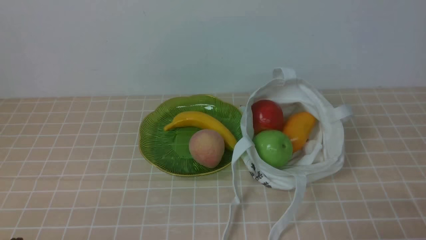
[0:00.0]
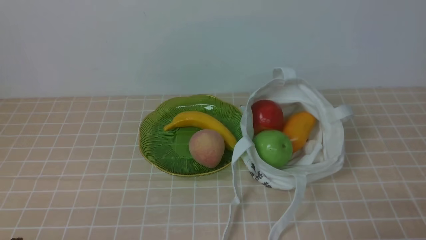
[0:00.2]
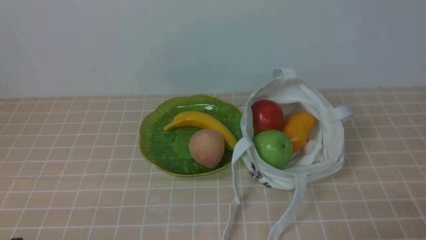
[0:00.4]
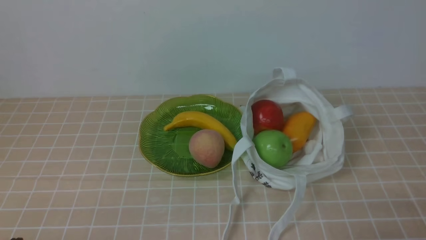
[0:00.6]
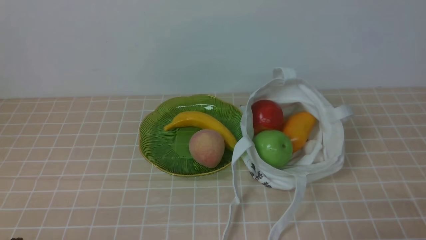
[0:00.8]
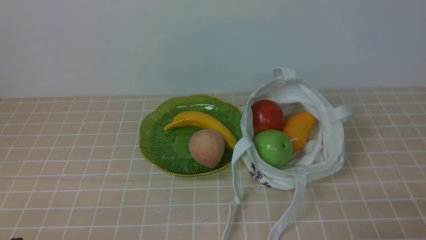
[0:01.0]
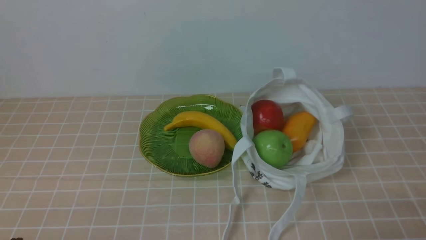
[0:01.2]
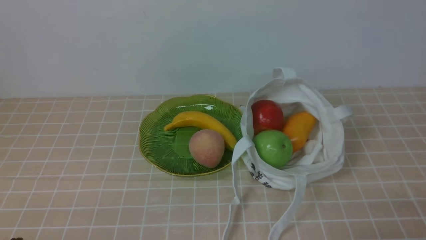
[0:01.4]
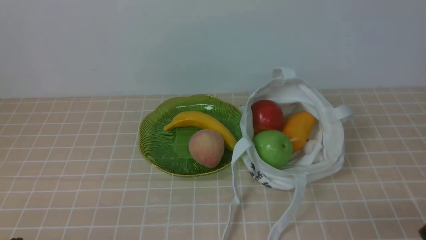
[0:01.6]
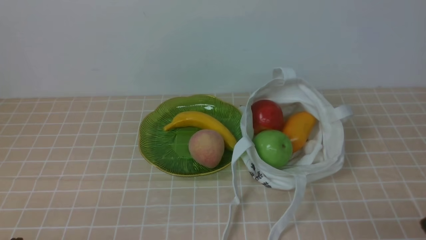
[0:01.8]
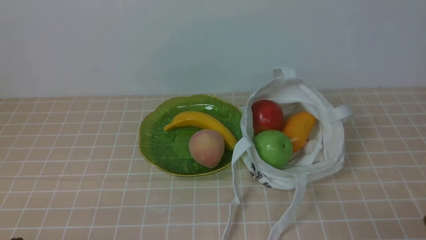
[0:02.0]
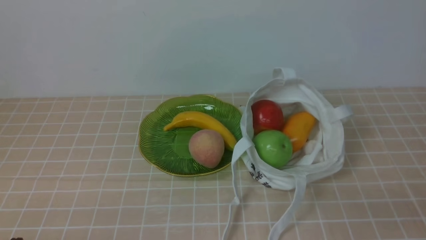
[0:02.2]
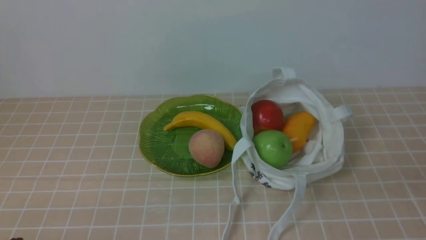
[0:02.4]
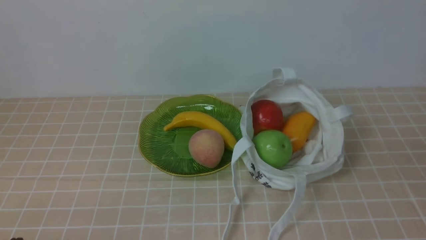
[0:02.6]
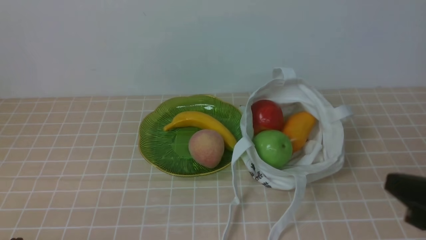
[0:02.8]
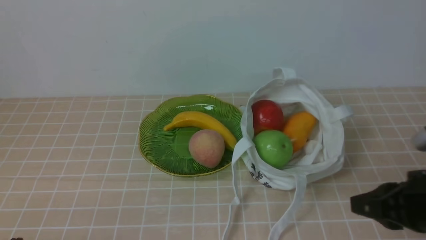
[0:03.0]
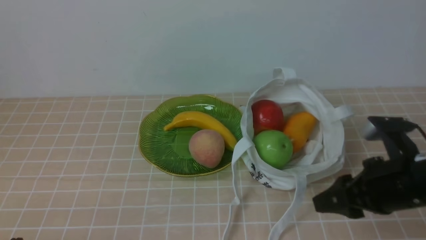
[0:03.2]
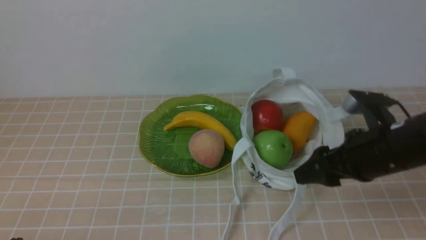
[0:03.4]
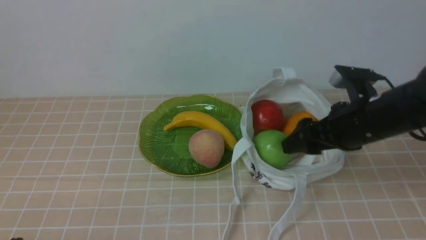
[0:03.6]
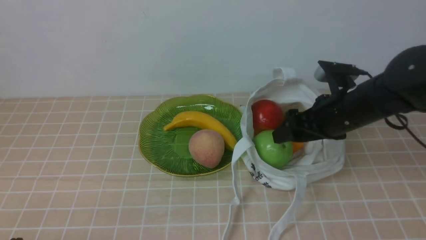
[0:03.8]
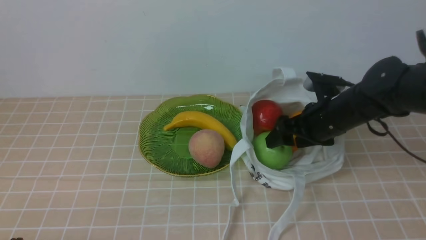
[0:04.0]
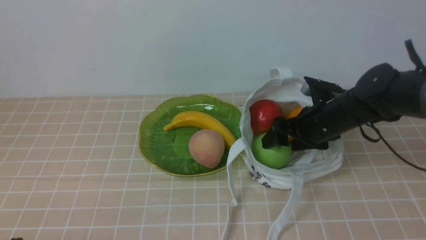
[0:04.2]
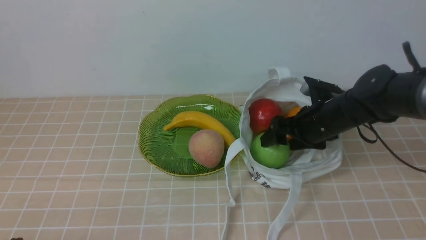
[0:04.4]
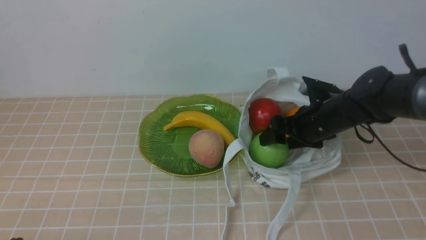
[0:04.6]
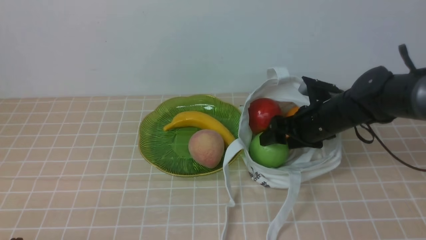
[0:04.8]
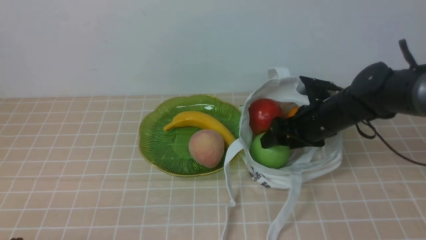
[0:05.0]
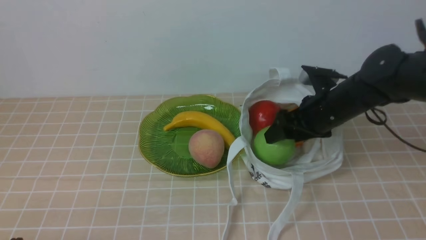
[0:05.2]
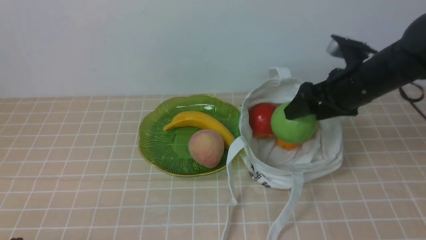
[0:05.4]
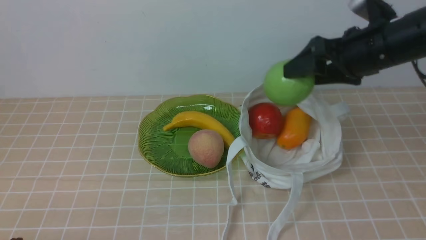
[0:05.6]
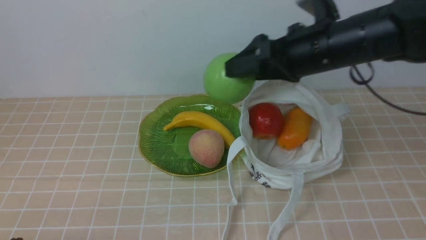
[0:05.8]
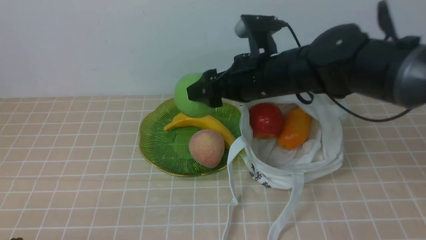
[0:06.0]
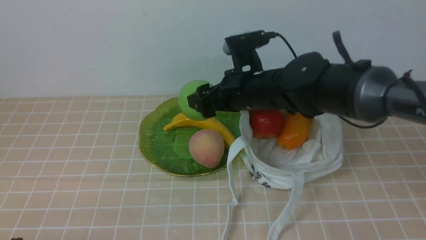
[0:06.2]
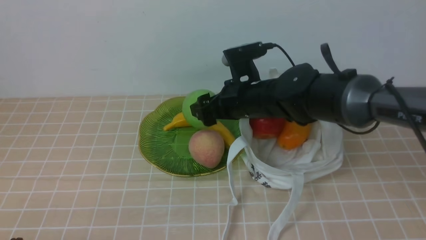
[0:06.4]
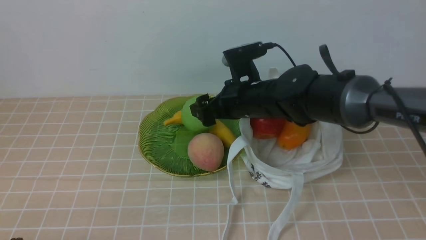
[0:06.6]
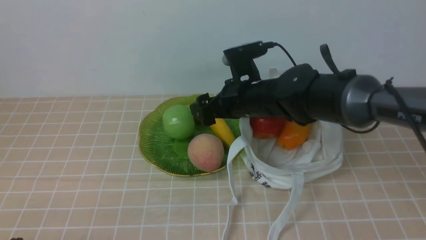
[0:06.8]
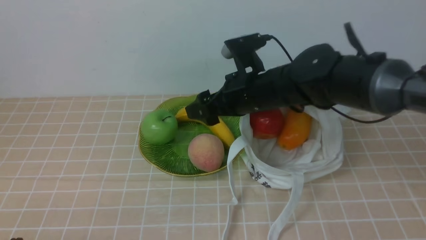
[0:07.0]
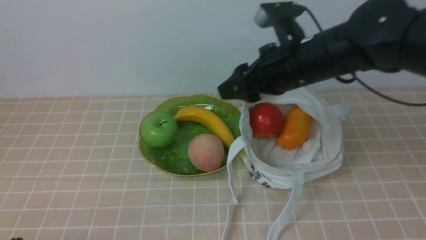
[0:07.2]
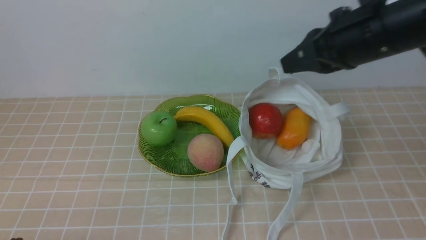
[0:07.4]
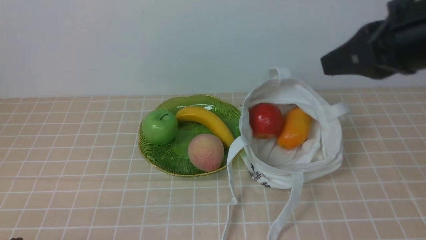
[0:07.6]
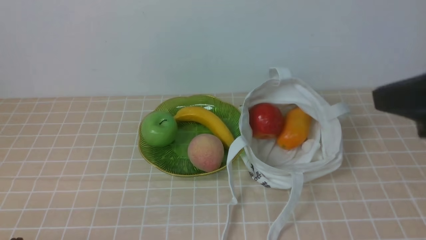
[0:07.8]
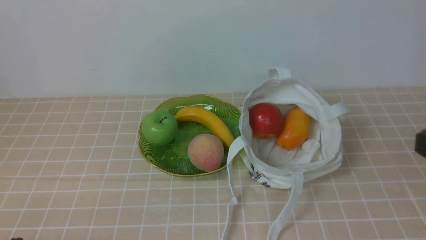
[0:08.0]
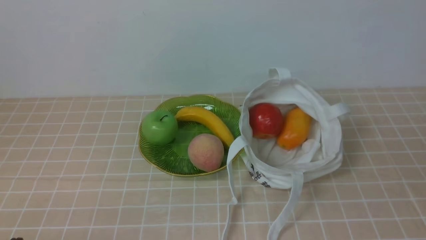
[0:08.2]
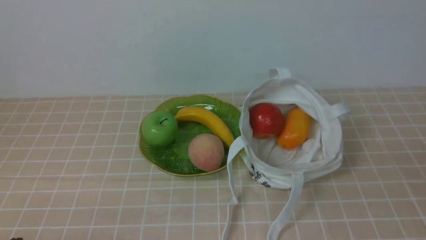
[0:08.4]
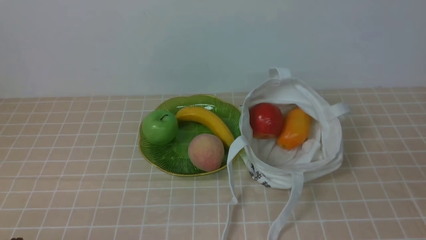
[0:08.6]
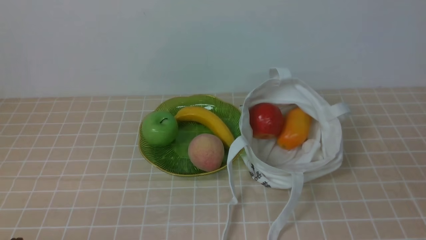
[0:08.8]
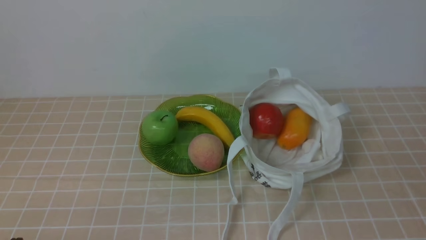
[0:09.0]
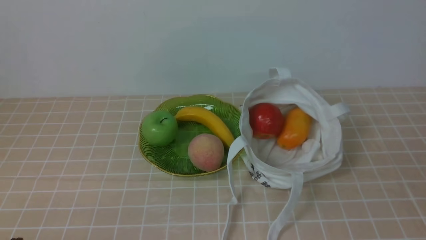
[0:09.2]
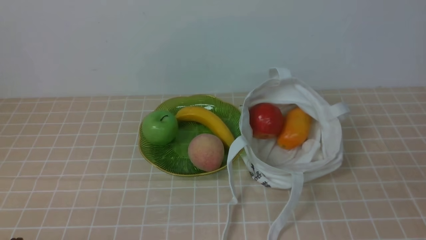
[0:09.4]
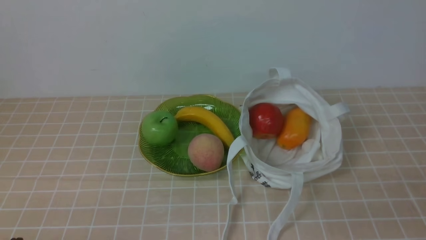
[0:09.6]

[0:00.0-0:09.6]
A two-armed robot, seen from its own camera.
Step, 0:00.0 to 0:05.0: use the right arm to grab an apple from the bag.
Step, 0:05.2 to 0:06.8: use the right arm to put the apple into the empty plate on the left.
0:01.6 to 0:03.2: The right gripper goes about 20 cm forward, upward and to the left, and opens.
0:03.2 to 0:04.8: The right gripper travels forward and downward by roughly 20 cm, and opens.
0:04.8 to 0:06.4: The right gripper travels to the left and upward by roughly 15 cm.
0:06.4 to 0:08.0: The right gripper heads backward, to the right and upward, covering roughly 35 cm, and closes.
0:08.0 to 0:09.6: The right gripper goes roughly 10 cm downward.

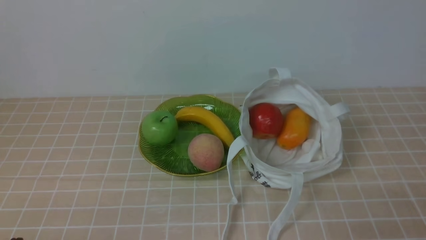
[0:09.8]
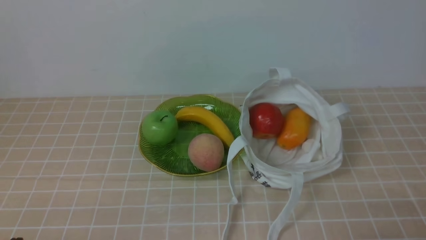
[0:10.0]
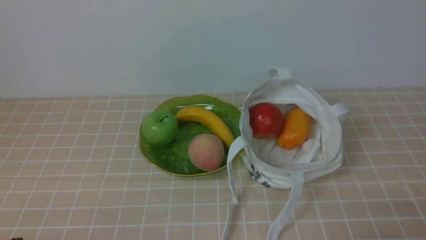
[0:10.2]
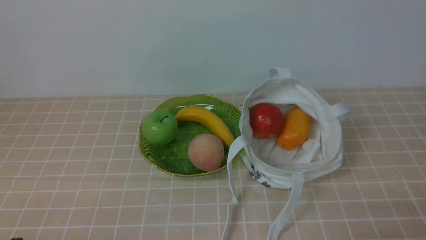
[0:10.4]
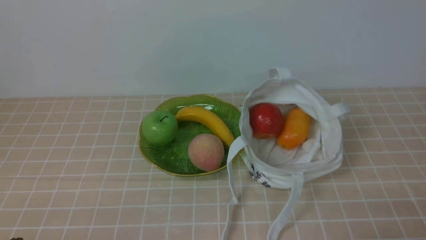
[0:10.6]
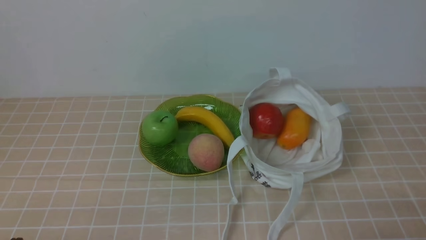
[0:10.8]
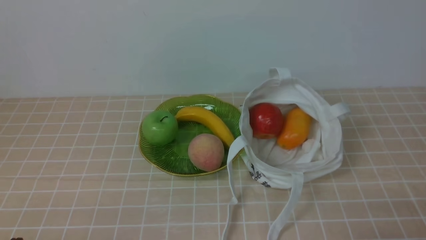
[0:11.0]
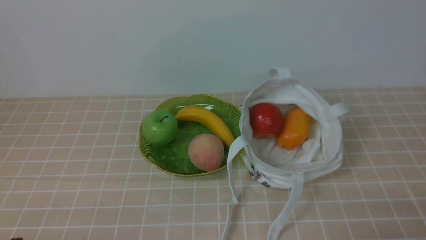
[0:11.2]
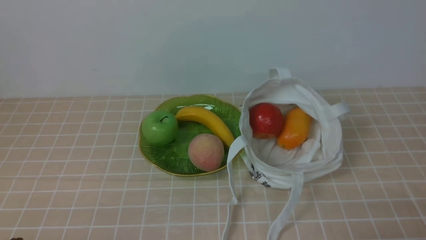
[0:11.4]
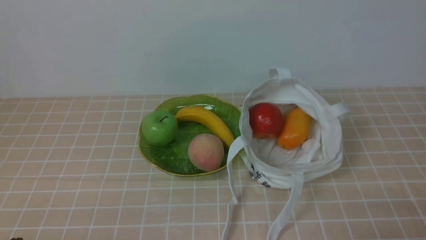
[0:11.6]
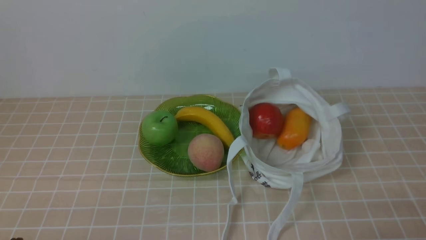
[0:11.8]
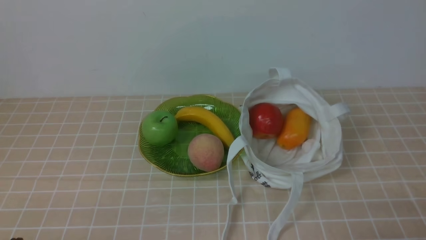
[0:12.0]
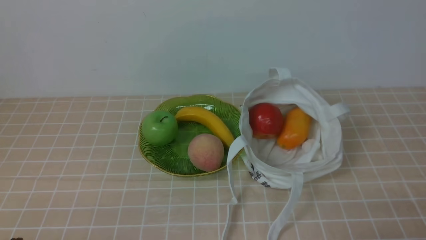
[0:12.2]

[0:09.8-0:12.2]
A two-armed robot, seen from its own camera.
0:11.0 to 0:12.2: Both grippers stay put.

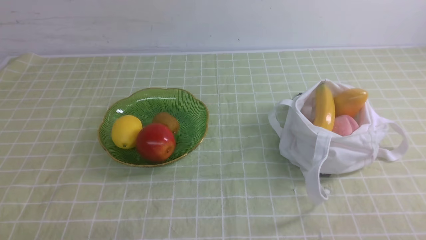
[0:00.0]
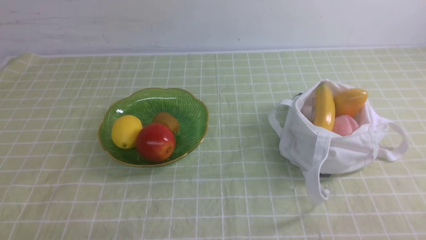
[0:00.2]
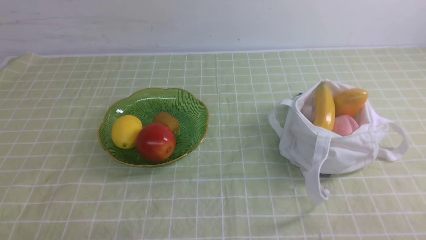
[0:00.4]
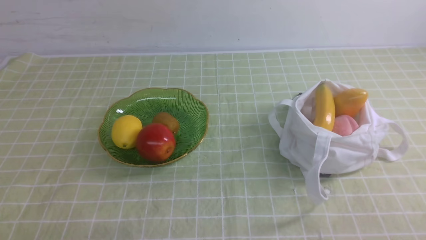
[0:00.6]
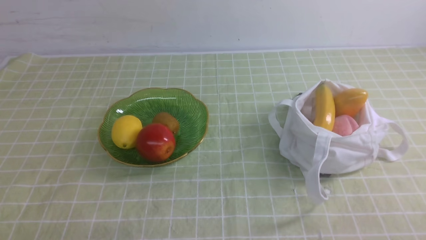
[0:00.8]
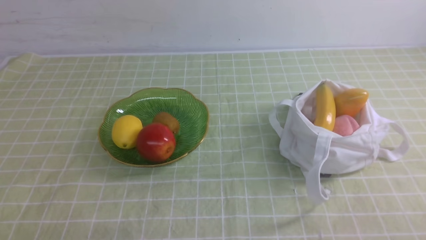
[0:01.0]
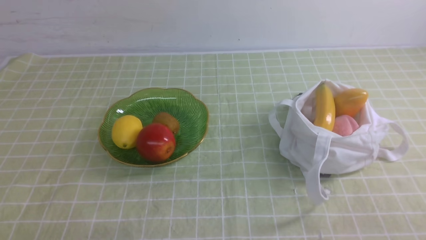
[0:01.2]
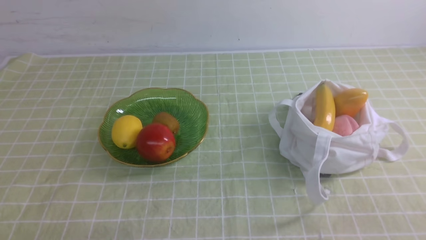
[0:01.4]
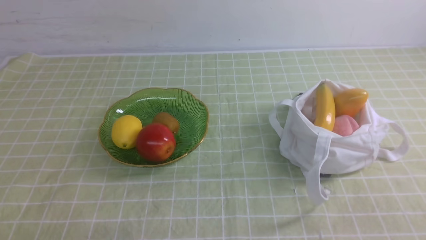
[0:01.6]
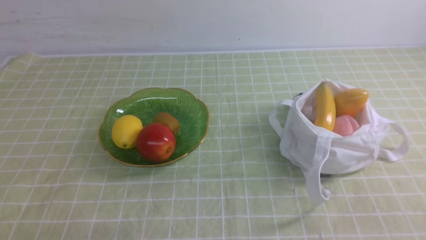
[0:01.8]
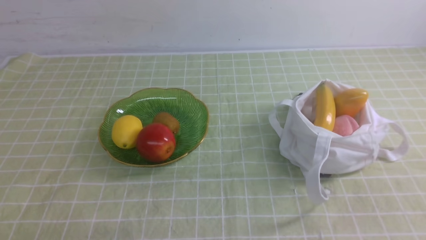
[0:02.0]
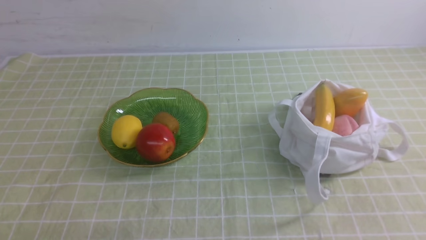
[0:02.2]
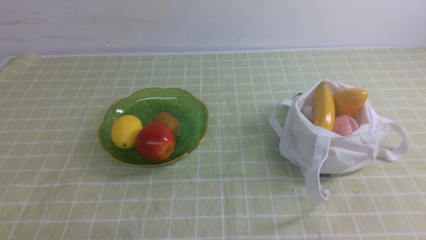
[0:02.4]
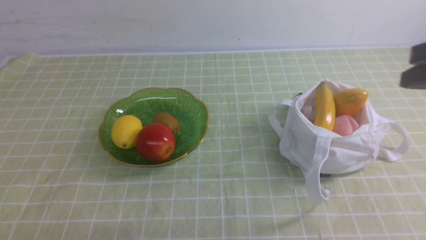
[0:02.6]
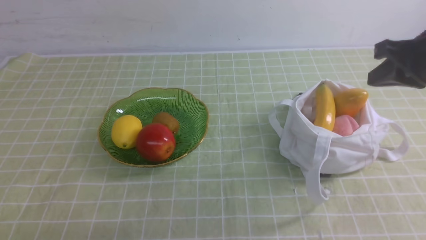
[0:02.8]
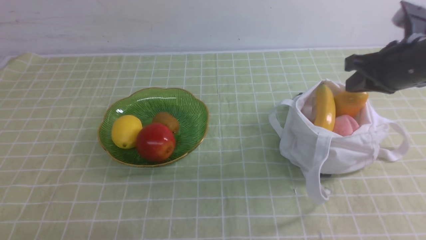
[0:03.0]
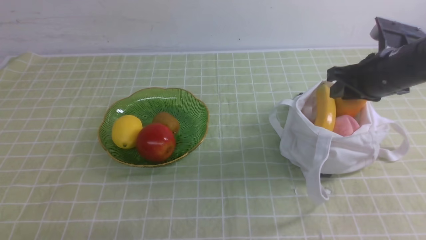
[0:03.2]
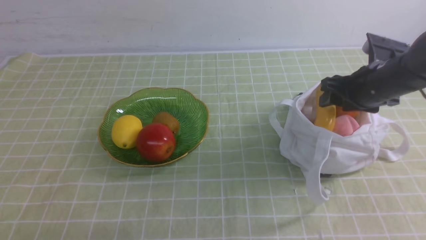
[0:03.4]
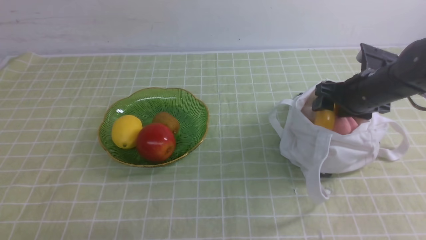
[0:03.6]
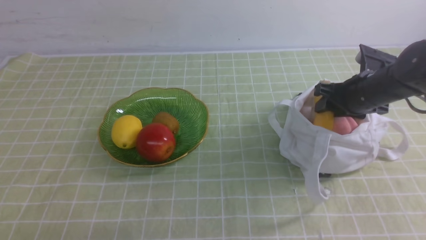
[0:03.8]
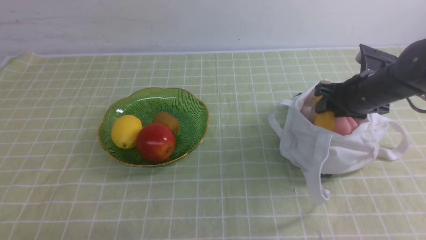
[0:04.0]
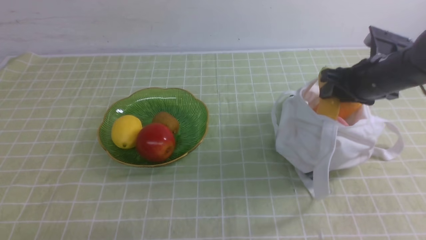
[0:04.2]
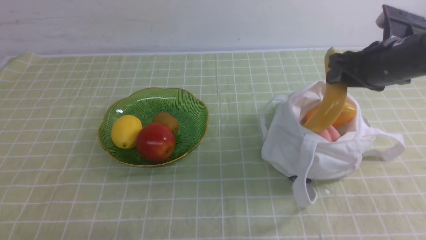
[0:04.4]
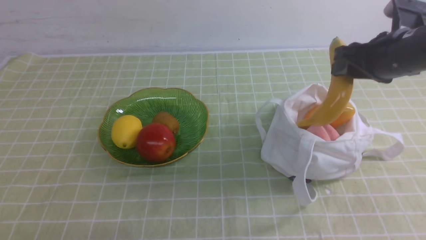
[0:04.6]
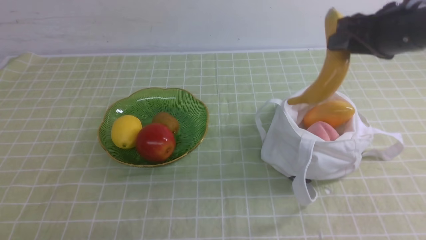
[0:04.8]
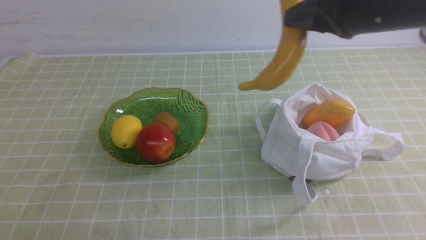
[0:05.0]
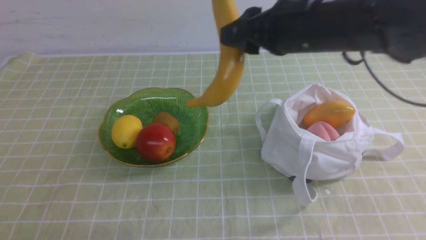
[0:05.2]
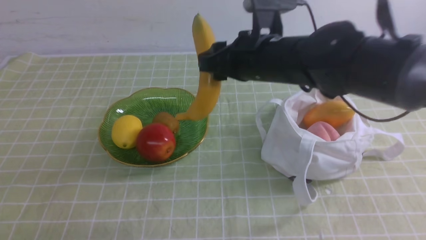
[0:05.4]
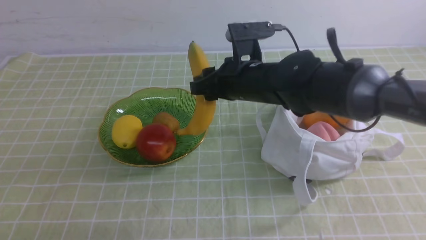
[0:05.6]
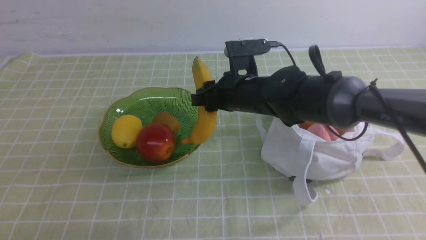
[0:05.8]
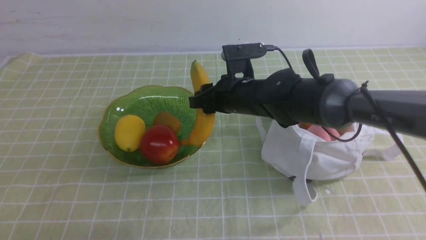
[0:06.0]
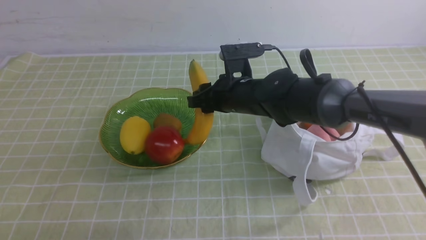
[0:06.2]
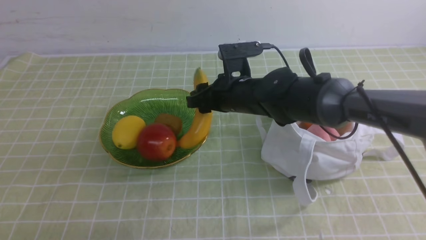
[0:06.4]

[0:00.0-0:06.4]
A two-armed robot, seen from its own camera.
Step, 0:00.0 to 0:04.2: use the right arm to grab a banana from the bag.
0:01.6 to 0:03.2: The right gripper moves forward, about 30 cm, and opens.
0:03.2 to 0:04.8: The right gripper shifts roughly 10 cm upward.
0:04.8 to 0:06.4: The right gripper shifts roughly 25 cm to the left and downward.
